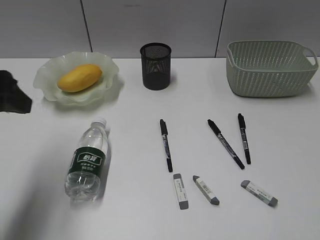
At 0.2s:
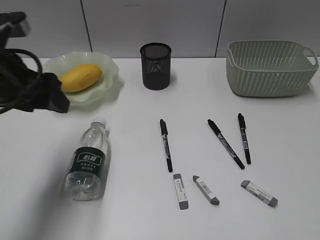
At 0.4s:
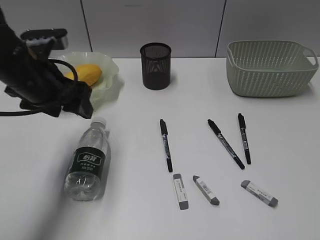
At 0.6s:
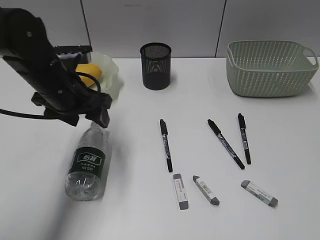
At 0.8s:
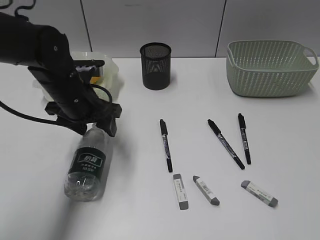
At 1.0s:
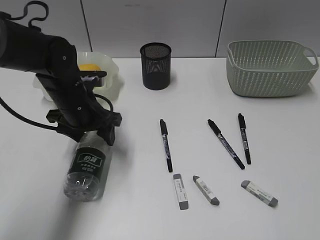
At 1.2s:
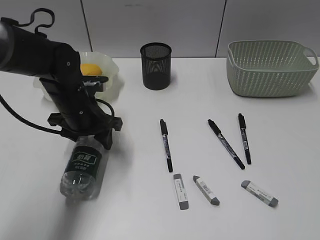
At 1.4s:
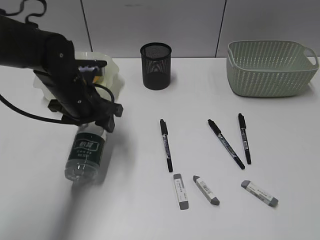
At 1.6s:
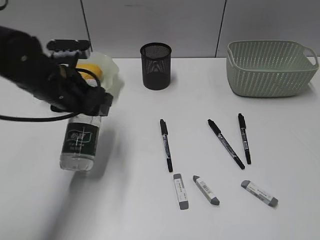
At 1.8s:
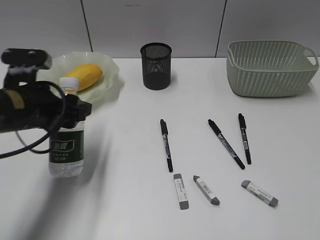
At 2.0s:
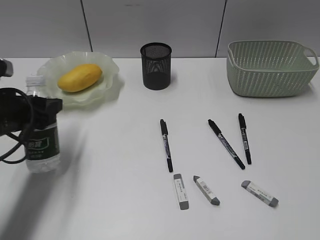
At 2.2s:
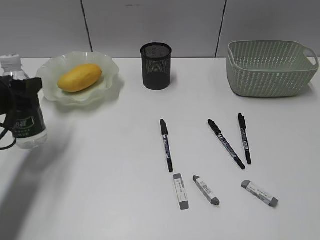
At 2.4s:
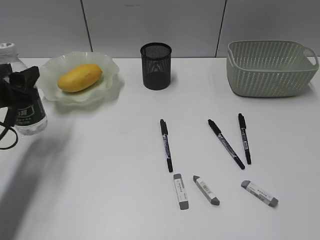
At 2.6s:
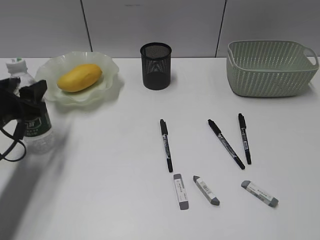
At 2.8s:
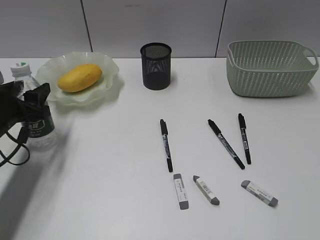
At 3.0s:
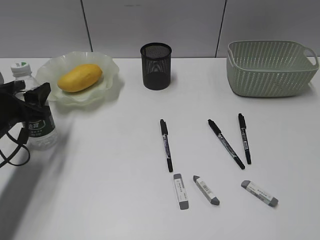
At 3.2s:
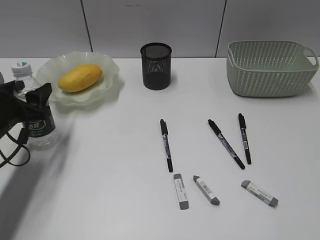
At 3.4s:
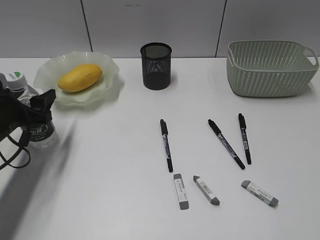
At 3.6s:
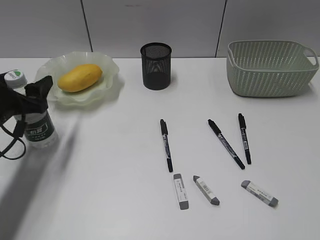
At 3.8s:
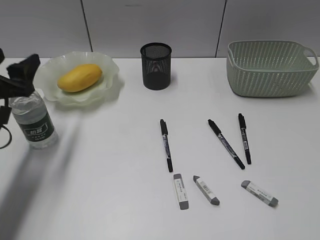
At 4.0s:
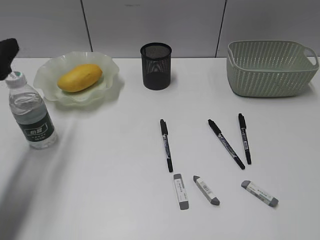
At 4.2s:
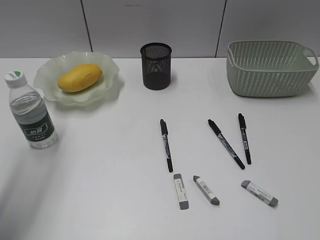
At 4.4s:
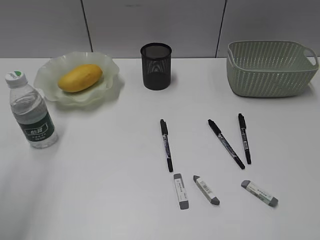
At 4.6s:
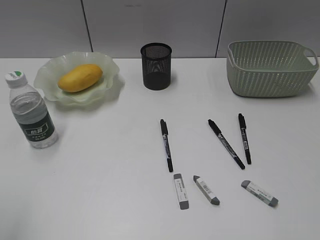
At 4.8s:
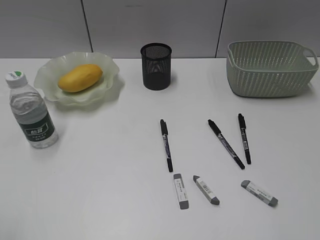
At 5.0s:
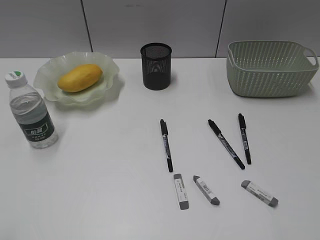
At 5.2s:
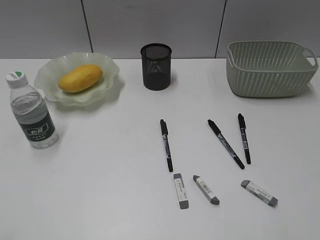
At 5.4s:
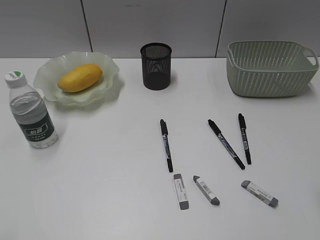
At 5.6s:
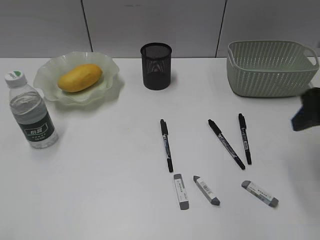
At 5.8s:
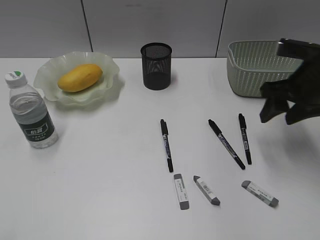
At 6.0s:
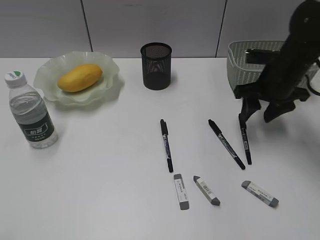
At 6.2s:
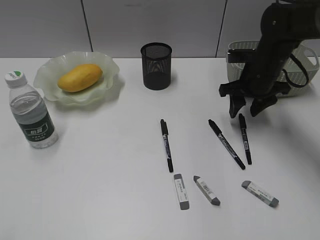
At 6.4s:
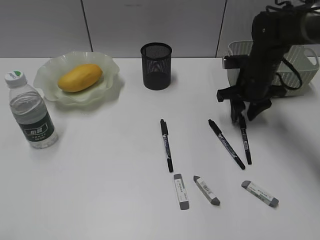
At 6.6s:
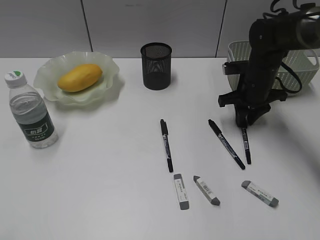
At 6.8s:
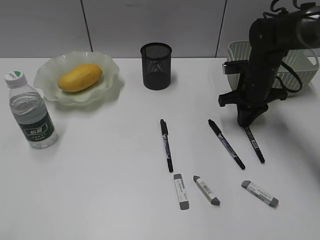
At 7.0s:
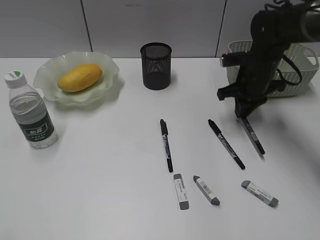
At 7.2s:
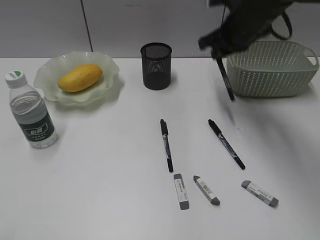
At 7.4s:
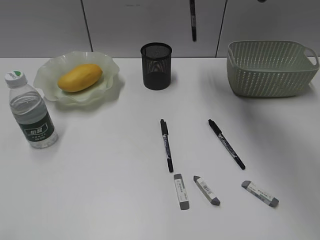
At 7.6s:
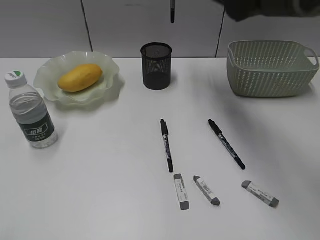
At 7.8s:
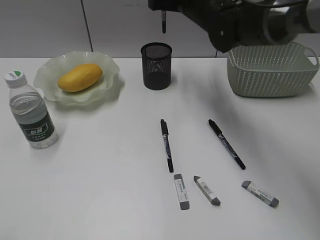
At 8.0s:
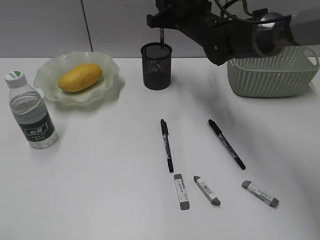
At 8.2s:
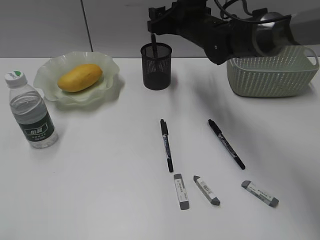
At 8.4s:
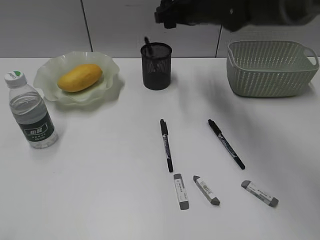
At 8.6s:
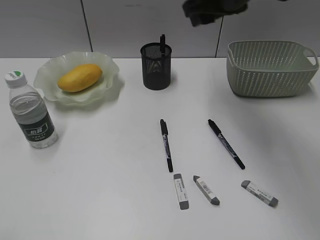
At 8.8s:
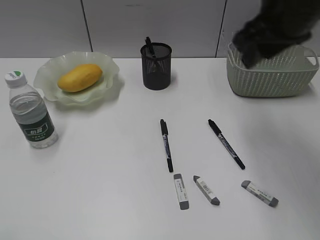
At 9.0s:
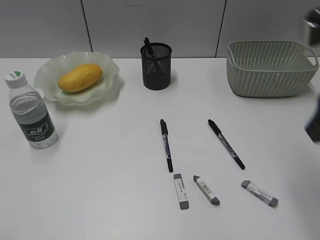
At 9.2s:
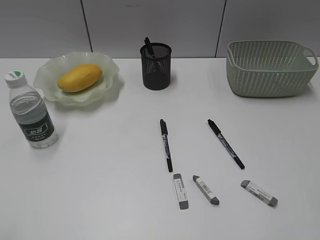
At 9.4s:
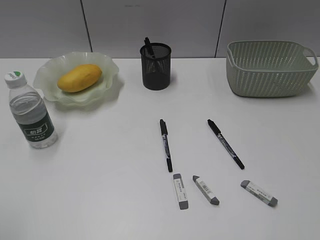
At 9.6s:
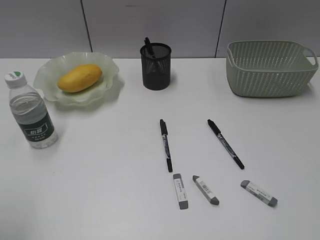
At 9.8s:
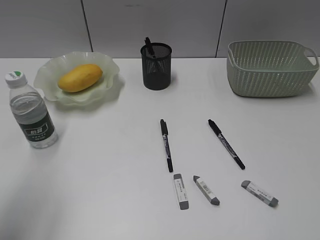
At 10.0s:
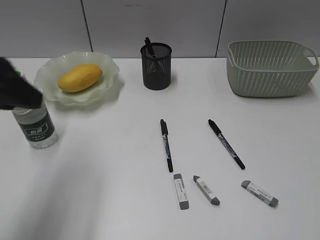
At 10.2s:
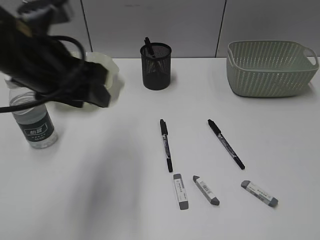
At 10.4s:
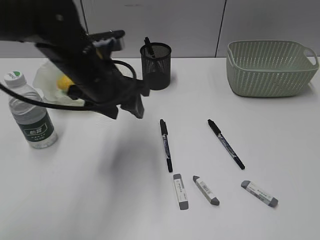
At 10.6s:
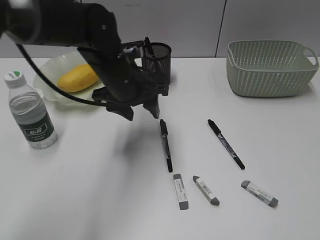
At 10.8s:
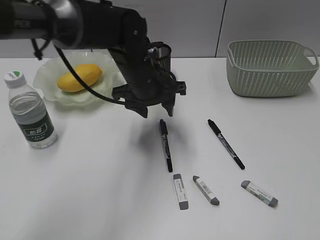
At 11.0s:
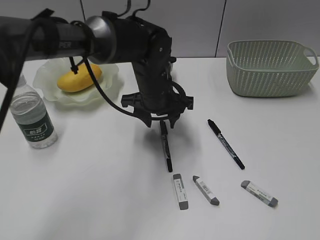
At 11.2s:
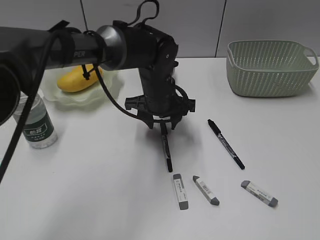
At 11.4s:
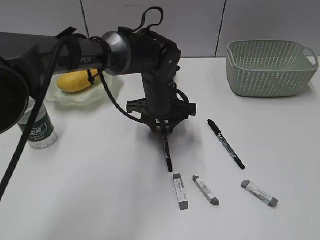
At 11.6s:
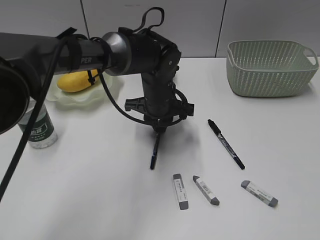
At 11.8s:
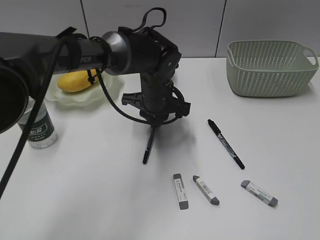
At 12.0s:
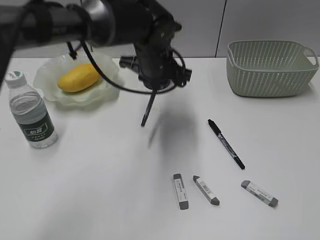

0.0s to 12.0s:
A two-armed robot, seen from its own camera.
Step, 0.0s to 1.4s: Grasp the bottle with left gripper.
Step, 1.6s to 3.8s: Stand the bottle with left gripper.
Step, 4.0s to 6.8s: Grasp the black pen with right gripper.
Step, 8.4s to 11.6s: Grasp the black pen with left gripper.
0.0s to 1.6s: The left gripper is displaced forward, downward and to the right by some 15 cm.
1.6s to 3.0s: The left gripper shifts some 15 cm to the left and downward.
3.0s to 4.4s: The left gripper travels upward and backward by some 25 cm.
4.4s to 6.0s: The left gripper shifts roughly 15 cm backward, while the right gripper travels forward by some 40 cm.
6.0s to 7.6s: The right gripper travels to the left, upward and forward by some 20 cm, and closes up.
7.6s to 9.0s: The right gripper goes some 30 cm backward and to the right, and opens up.
9.0s to 10.4s: The right gripper heads backward and to the right, covering approximately 25 cm, while the left gripper heads forward and to the right, covering about 40 cm.
10.4s to 12.0s: The left gripper shifts about 15 cm to the right and forward, and closes its fingers.

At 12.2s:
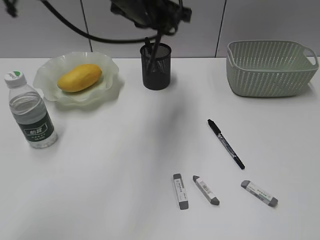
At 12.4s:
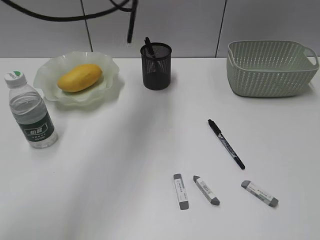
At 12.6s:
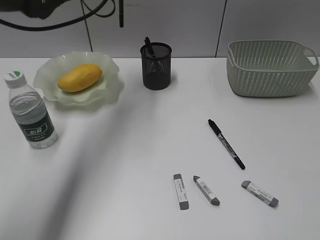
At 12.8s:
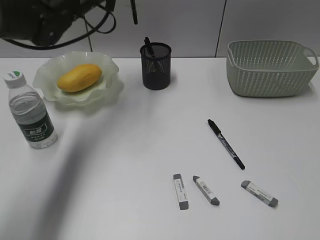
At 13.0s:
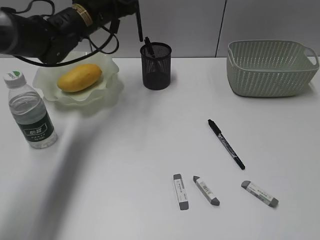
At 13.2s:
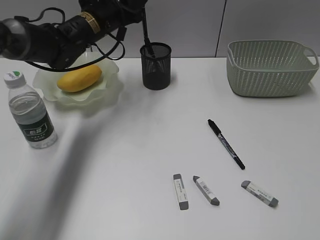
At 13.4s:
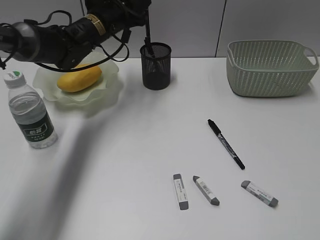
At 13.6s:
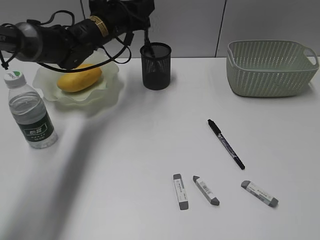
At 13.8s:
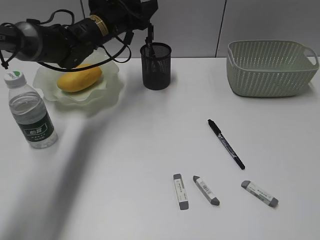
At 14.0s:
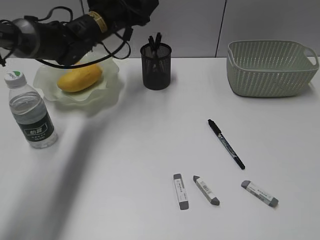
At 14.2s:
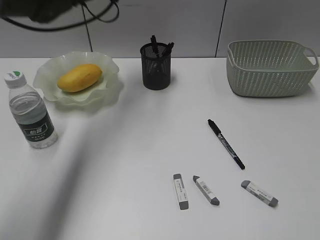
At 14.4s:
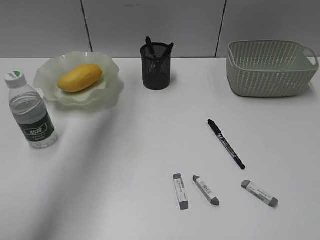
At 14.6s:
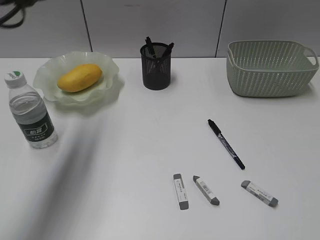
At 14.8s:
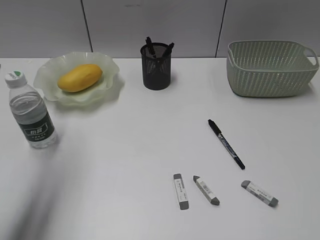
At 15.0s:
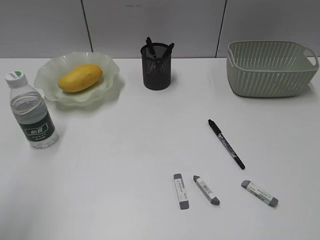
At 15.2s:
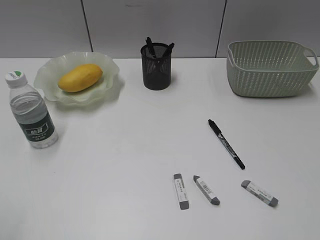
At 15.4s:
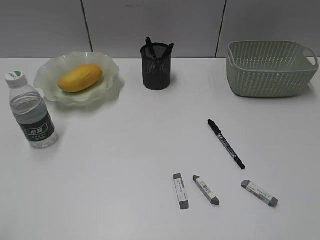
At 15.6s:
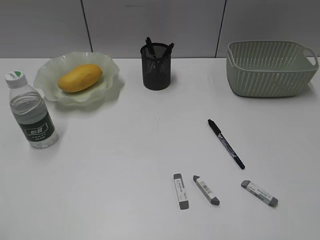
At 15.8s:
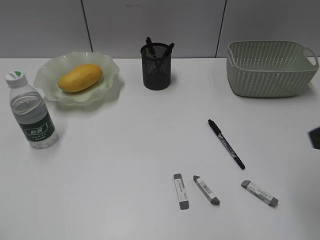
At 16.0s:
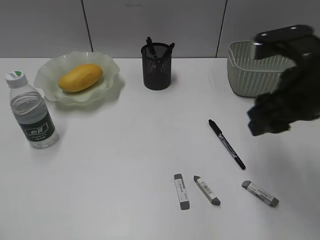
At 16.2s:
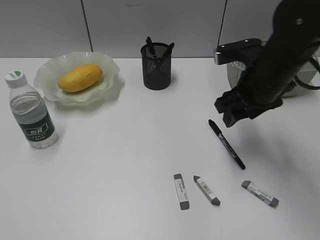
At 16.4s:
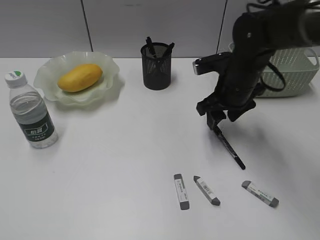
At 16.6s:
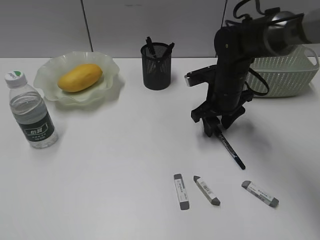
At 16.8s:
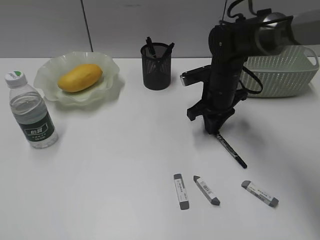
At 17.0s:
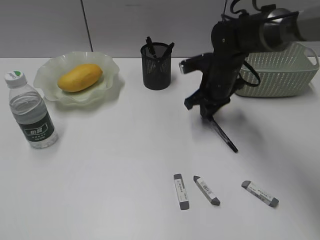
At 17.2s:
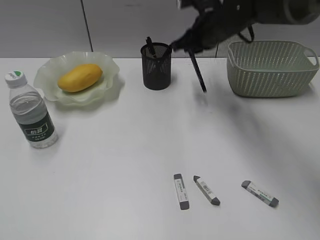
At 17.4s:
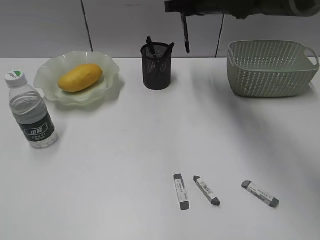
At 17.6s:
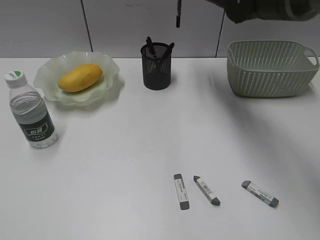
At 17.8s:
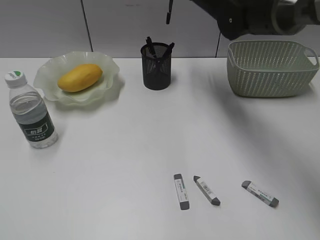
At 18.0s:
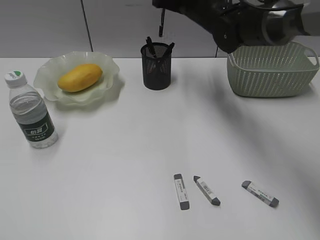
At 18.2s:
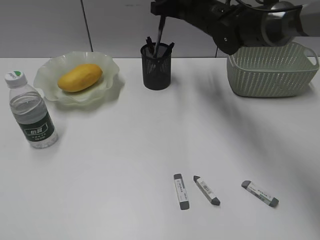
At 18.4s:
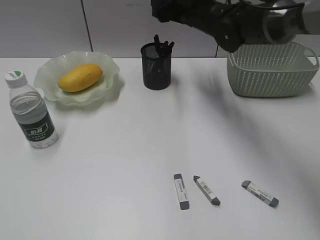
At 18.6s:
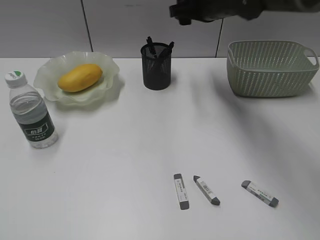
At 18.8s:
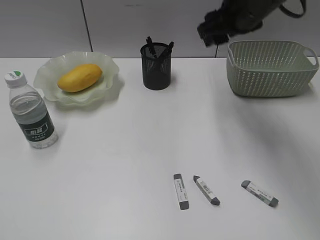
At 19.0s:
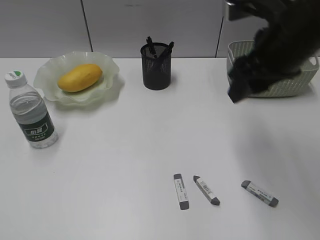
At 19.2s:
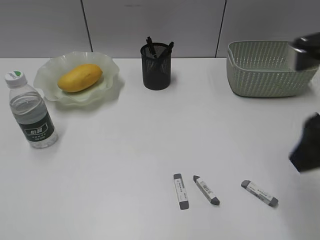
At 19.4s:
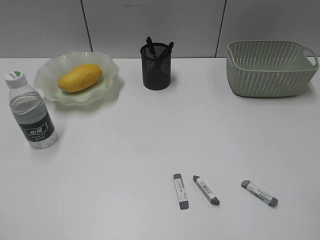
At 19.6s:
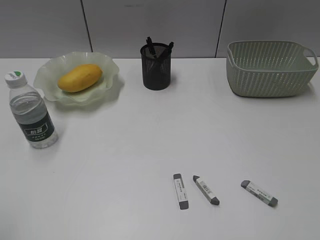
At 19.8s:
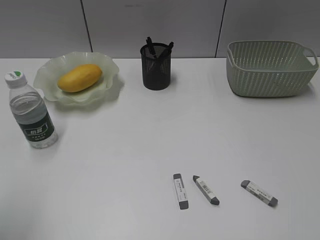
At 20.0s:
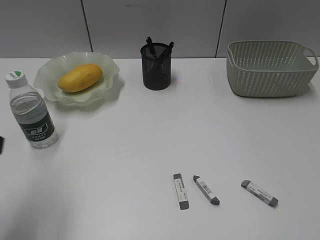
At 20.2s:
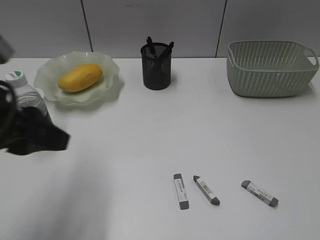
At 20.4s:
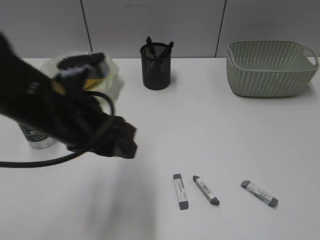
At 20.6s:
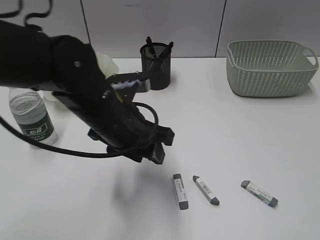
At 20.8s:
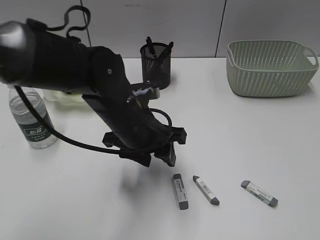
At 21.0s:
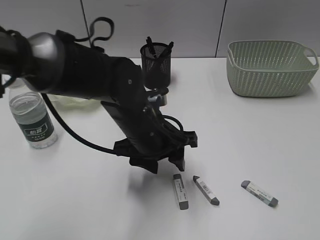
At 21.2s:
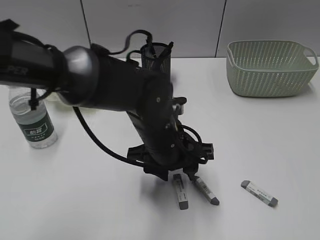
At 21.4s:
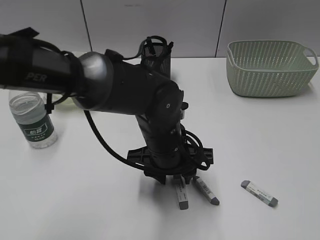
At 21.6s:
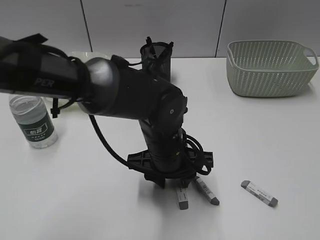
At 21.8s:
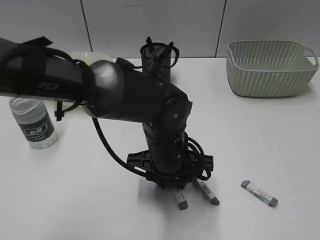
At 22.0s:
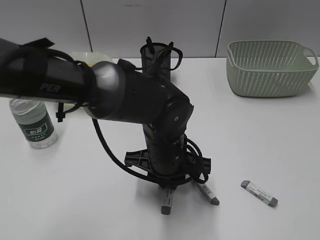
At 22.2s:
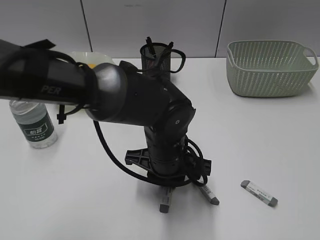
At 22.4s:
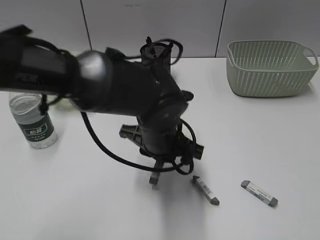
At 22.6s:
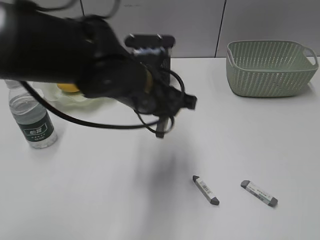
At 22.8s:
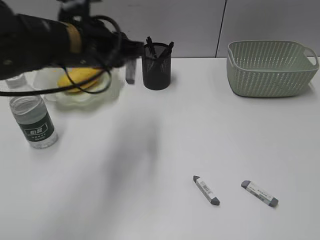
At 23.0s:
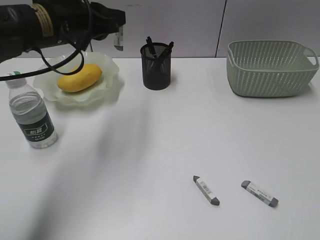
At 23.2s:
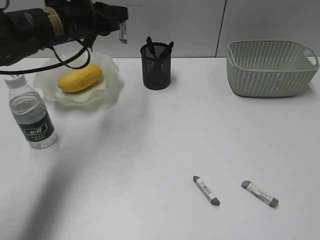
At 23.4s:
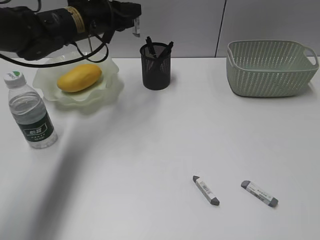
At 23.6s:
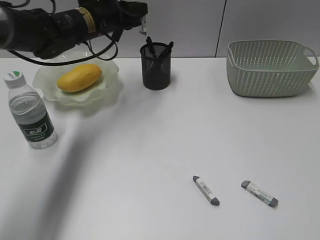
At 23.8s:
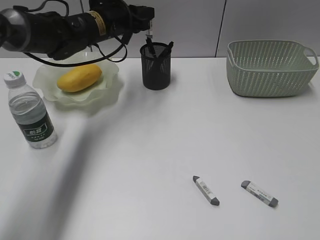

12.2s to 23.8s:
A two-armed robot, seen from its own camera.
Step, 12.2s to 14.0s: Place the black pen in pen holder with left gripper.
Step, 14.2s to 16.8s: Grasp the black pen with right gripper.
Step, 18.6s to 22.4s: Grasp the eraser with left gripper.
12.2s to 13.6s: The left gripper shifts roughly 15 cm forward, to the left and downward.
13.6s to 15.0s: The left gripper is displaced backward and to the left by roughly 40 cm, and opens, then closes once more.
15.0s to 16.6s: The left gripper travels backward by approximately 15 cm; the right gripper travels forward, to the left and downward by roughly 50 cm, and opens its fingers.
16.6s to 18.0s: The right gripper heads upward and forward, covering roughly 15 cm, and closes up.
18.0s to 19.4s: The right gripper travels backward and to the right by about 40 cm, and opens up.
19.4s to 21.0s: The left gripper travels to the right, forward and downward by approximately 40 cm, and opens its fingers, while the right gripper goes roughly 15 cm backward and to the right.
21.0s to 22.4s: The left gripper closes.
22.4s to 23.8s: The left gripper heads forward and to the left, covering roughly 25 cm.
